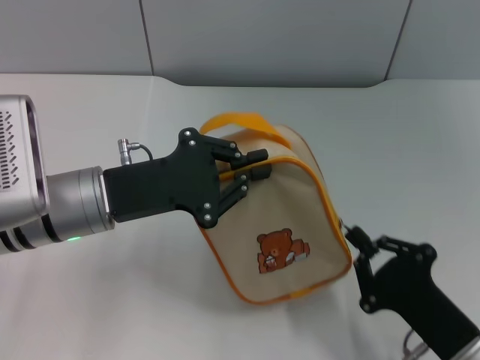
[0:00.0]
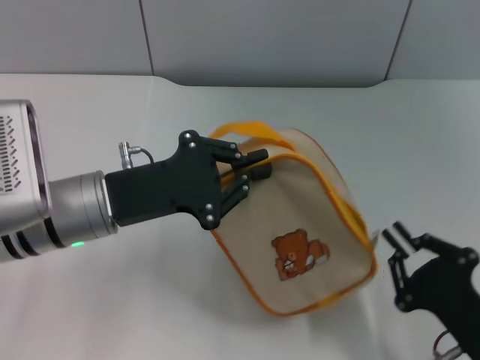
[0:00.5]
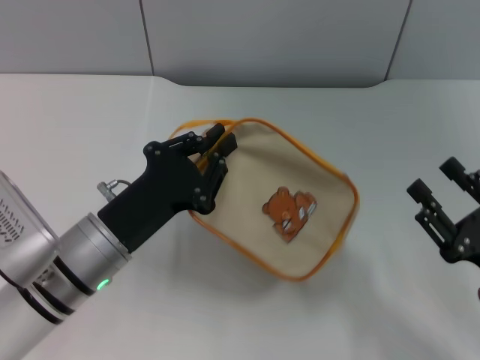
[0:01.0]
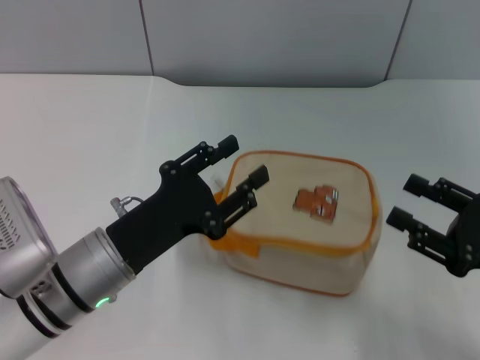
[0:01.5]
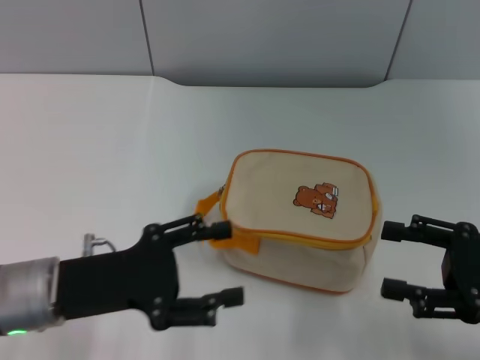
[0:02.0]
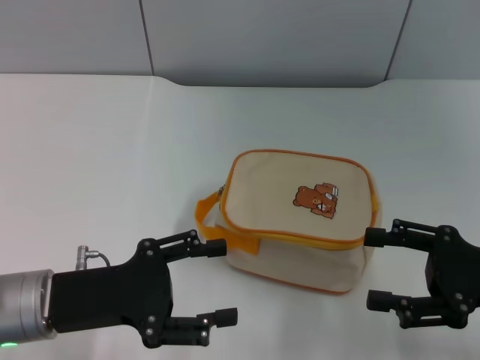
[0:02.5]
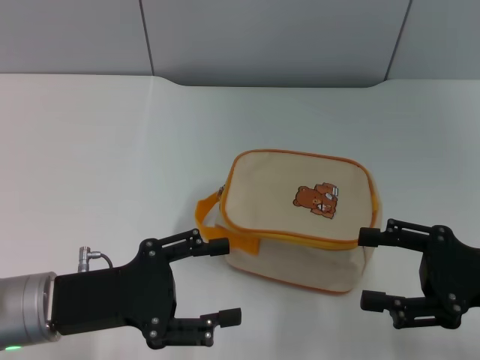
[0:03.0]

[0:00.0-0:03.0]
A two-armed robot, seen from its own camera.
Step, 0:01.0 to 0:01.5: Place the bag on the table with left gripper.
0:00.0 to 0:01.5: The right gripper travels to the right, upward and forward by approximately 10 cm, and opens its fingers; the left gripper is displaced backward and downward by about 10 cm.
0:01.5 to 0:03.0: The left gripper shifts approximately 5 cm to the left, and opens its fingers.

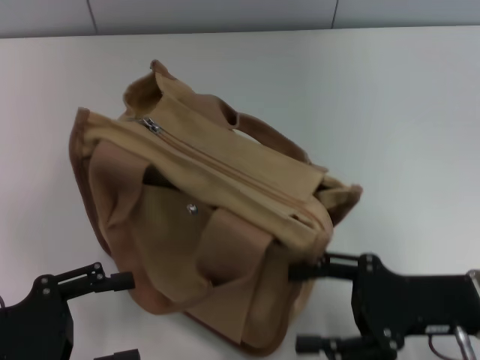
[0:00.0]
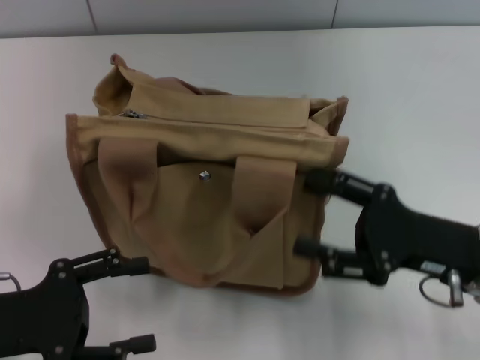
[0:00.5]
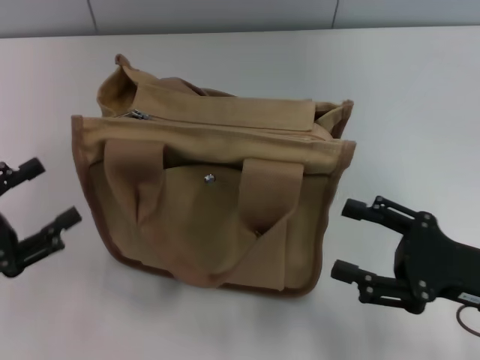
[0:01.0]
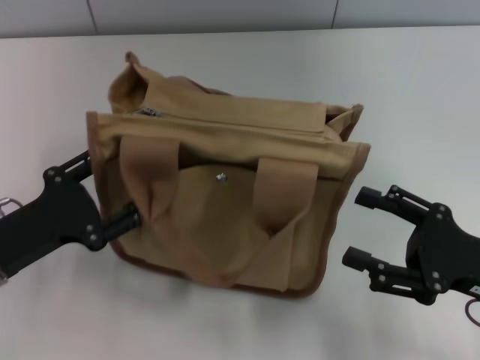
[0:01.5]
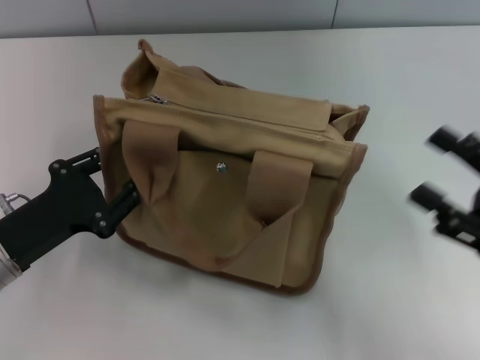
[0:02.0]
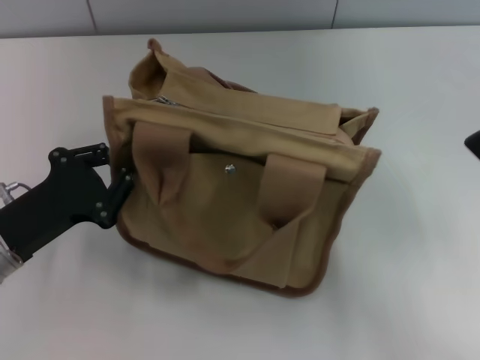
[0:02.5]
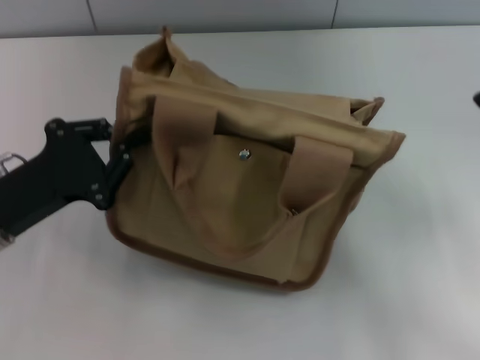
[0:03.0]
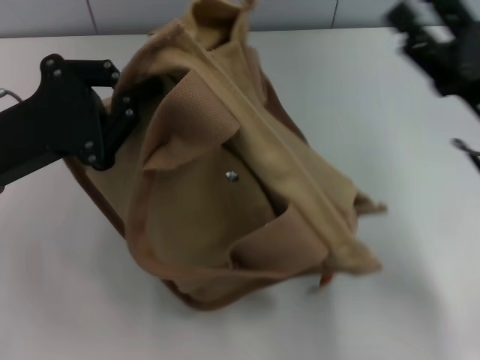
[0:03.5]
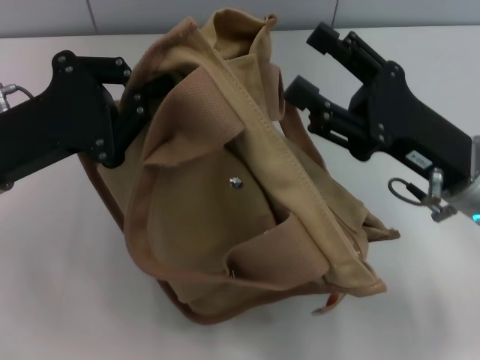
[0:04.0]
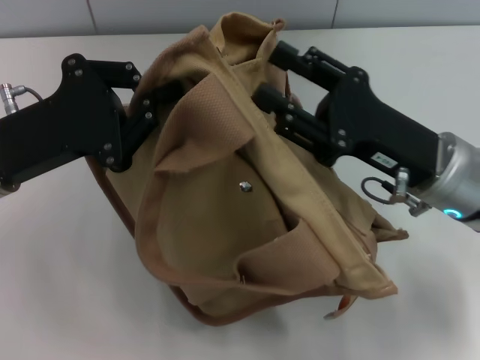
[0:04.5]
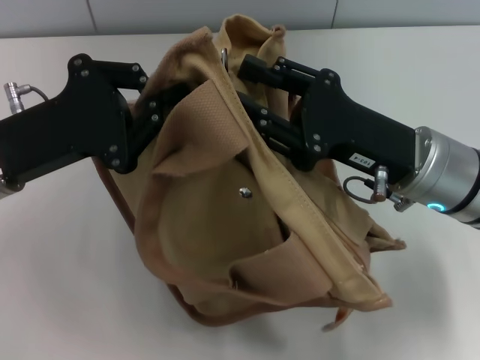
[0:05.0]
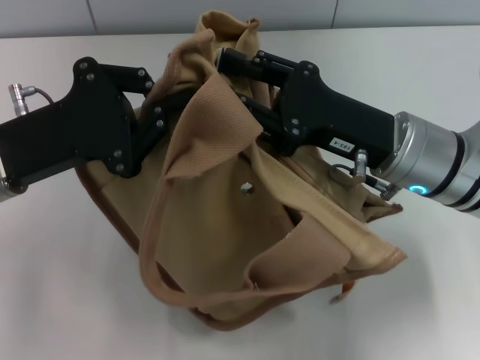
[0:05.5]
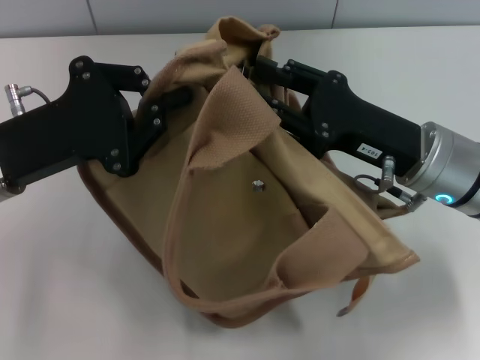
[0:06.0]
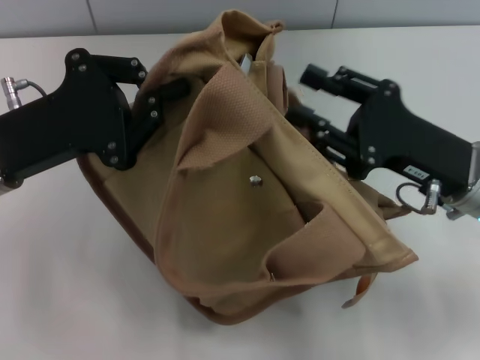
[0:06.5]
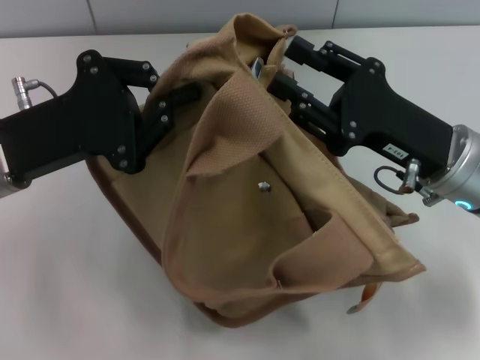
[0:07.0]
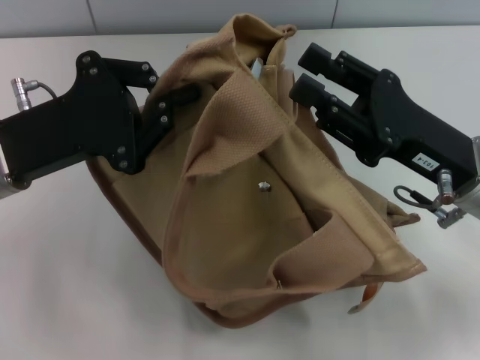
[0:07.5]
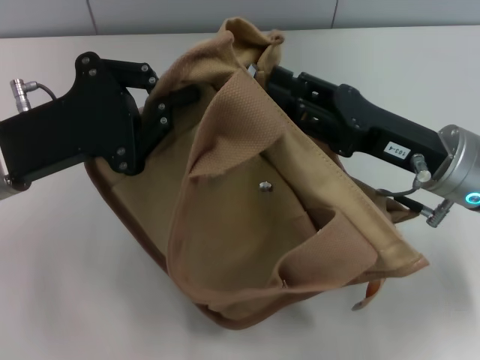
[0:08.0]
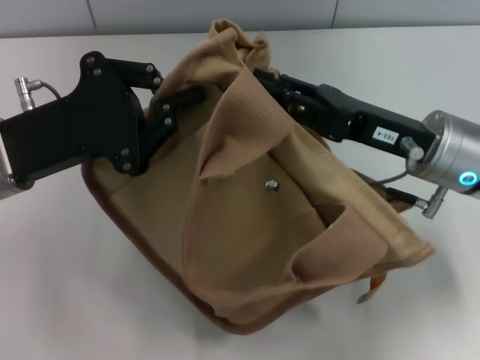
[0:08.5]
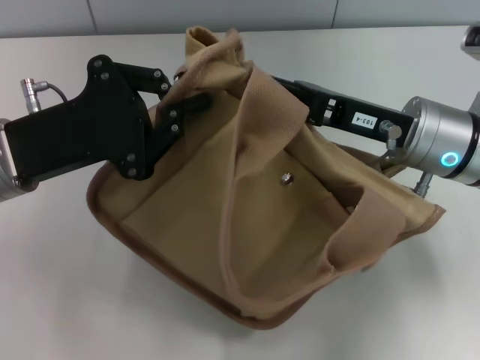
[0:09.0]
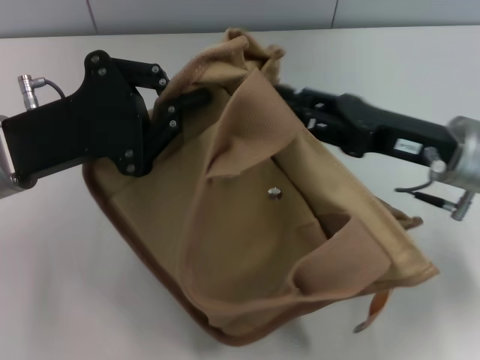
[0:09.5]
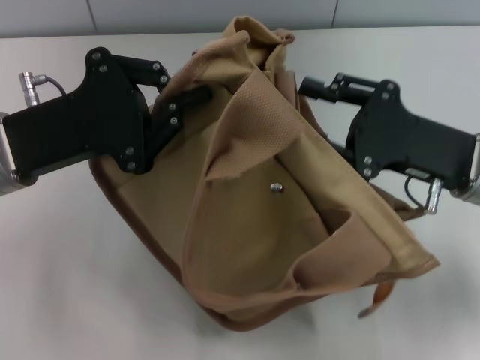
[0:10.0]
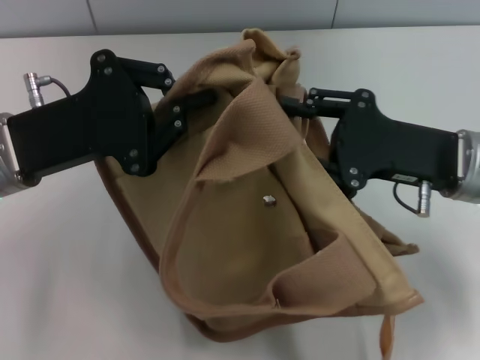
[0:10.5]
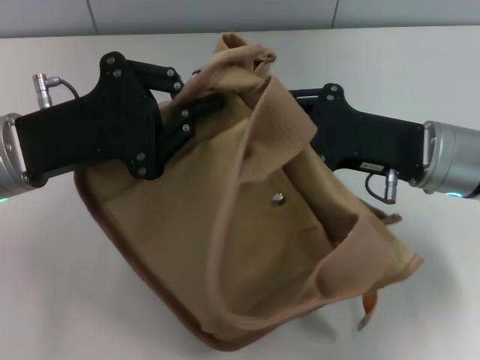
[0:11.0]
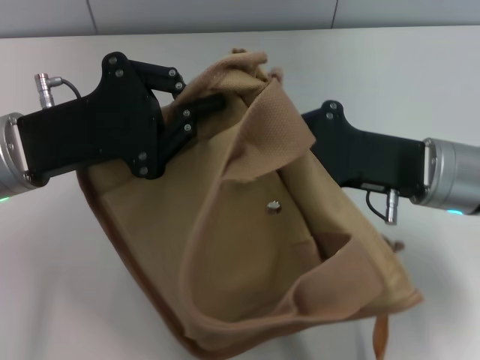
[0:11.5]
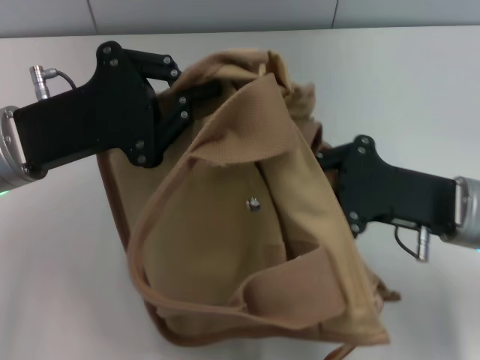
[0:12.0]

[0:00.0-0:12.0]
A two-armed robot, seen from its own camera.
0:00.0 to 0:02.0: The right gripper travels to the right by approximately 5 cm. Meanwhile the left gripper shifts roughly 5 cm forward, and closes its fingers.
0:02.0 to 0:04.0: The right gripper shifts approximately 15 cm to the left and forward; the left gripper goes roughly 10 cm upward and forward, and closes.
0:06.0 to 0:08.0: The grippers make only small movements.
0:10.0 to 0:12.0: The right gripper closes up.

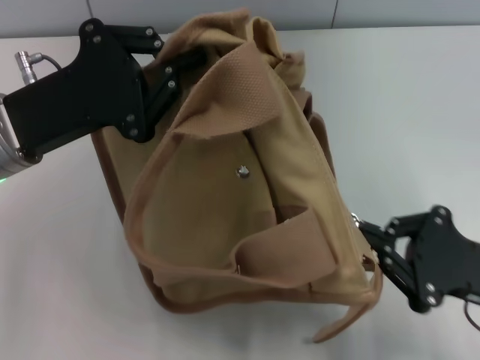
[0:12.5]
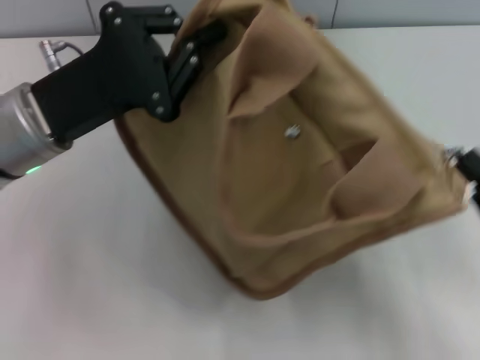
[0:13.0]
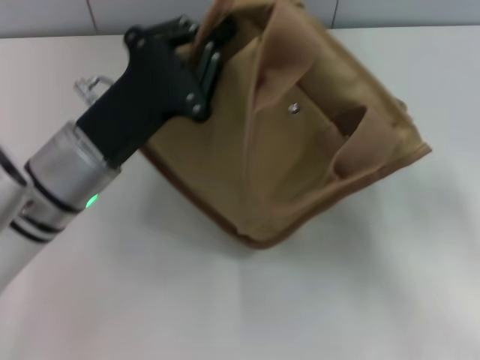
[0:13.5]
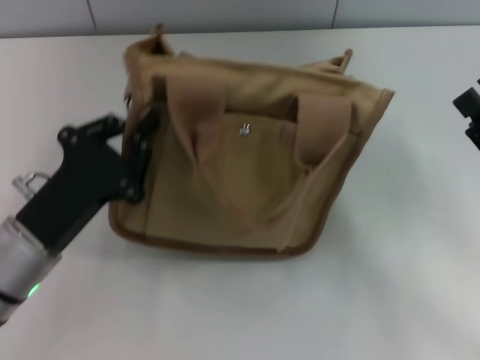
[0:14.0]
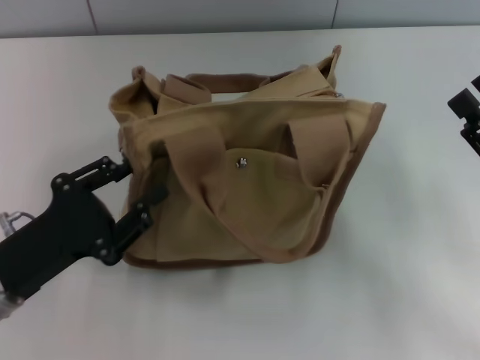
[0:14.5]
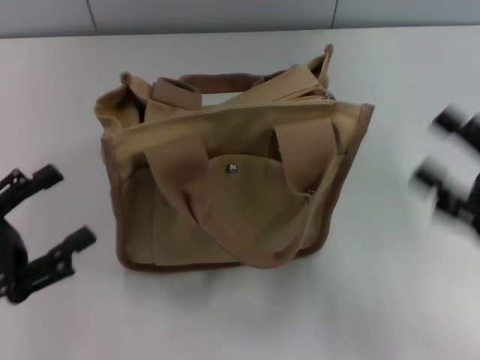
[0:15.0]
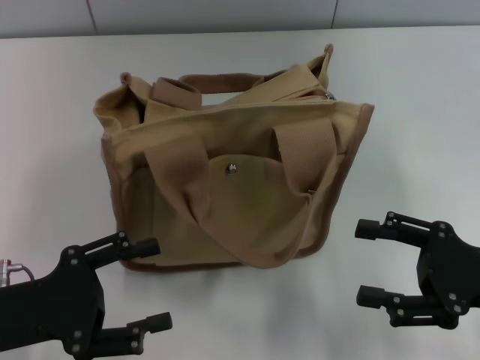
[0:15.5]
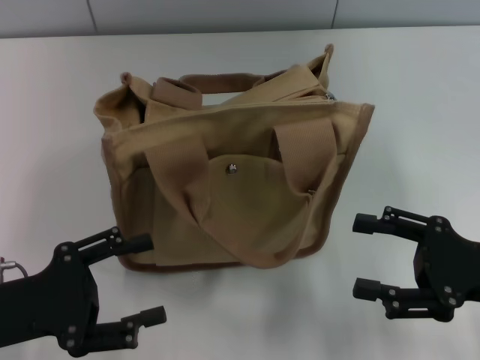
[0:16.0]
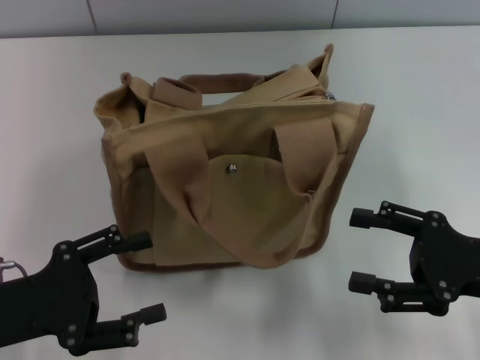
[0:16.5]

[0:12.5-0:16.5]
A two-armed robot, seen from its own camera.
Step, 0:13.5 to 0:14.5: Grab the bag with your left hand.
0:12.5 to 0:14.5: The right gripper opens its fingers, while the left gripper heads backward and downward, covering some 15 cm.
0:14.5 to 0:16.5: The left gripper opens.
